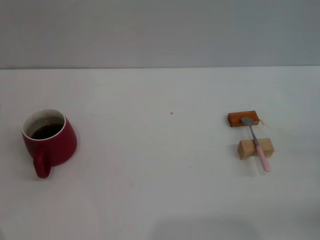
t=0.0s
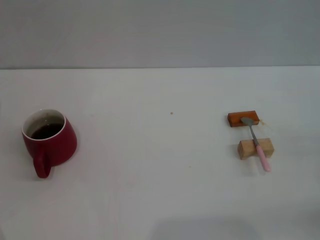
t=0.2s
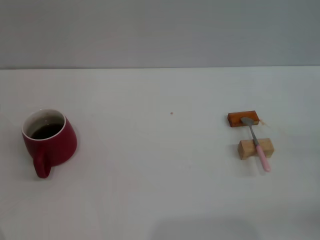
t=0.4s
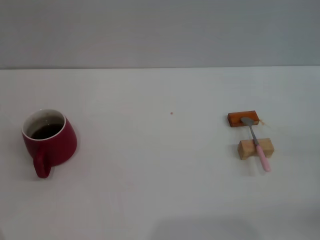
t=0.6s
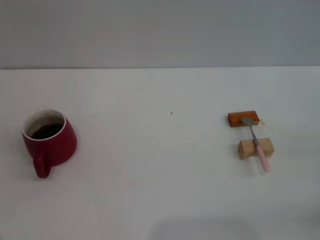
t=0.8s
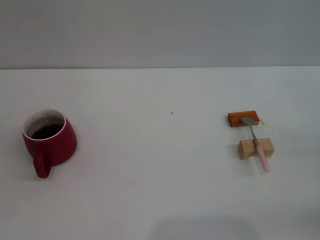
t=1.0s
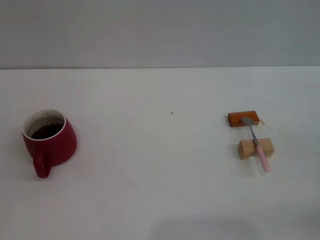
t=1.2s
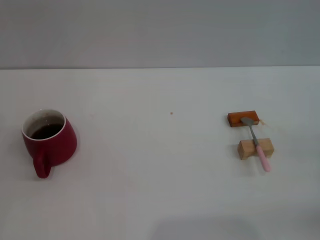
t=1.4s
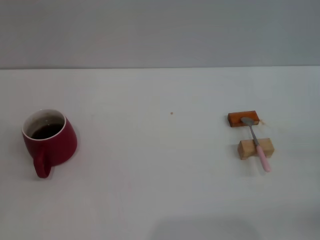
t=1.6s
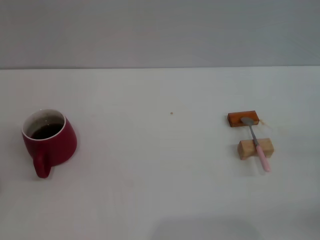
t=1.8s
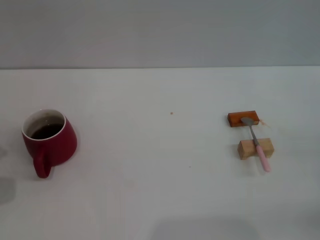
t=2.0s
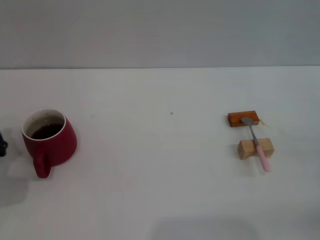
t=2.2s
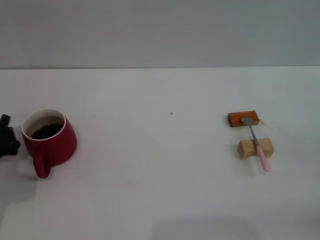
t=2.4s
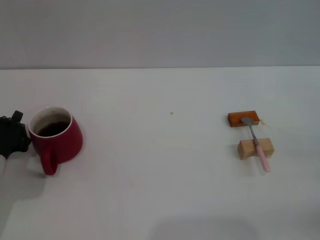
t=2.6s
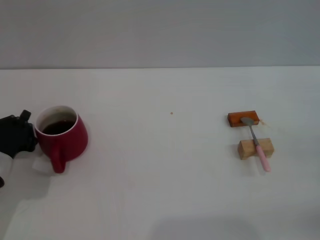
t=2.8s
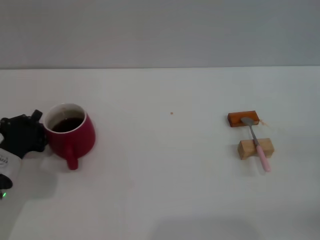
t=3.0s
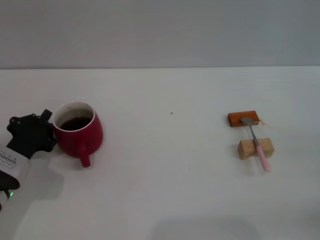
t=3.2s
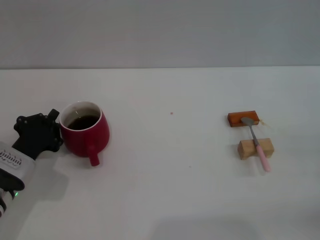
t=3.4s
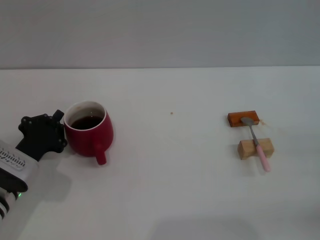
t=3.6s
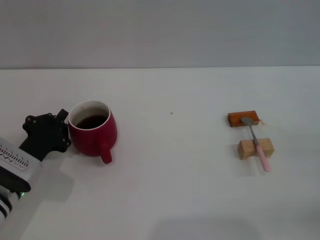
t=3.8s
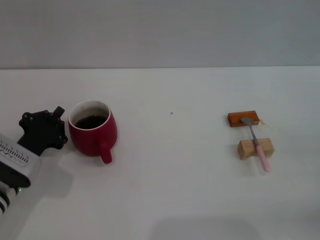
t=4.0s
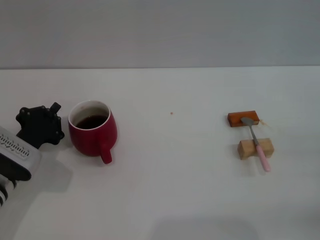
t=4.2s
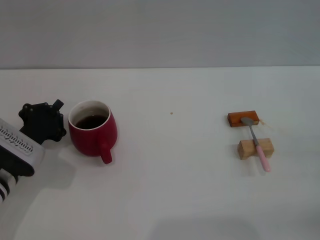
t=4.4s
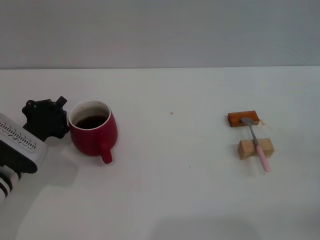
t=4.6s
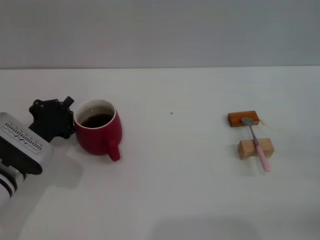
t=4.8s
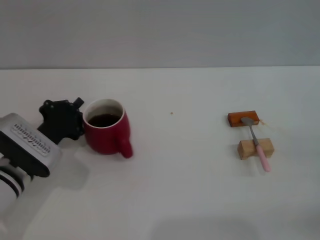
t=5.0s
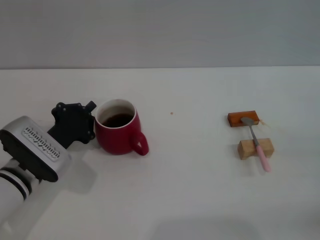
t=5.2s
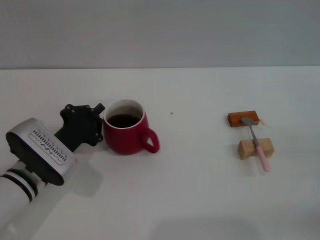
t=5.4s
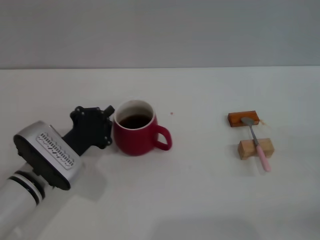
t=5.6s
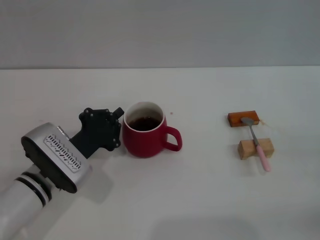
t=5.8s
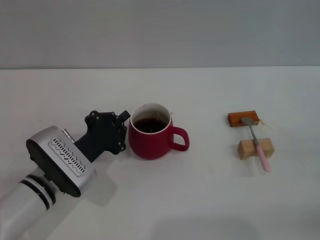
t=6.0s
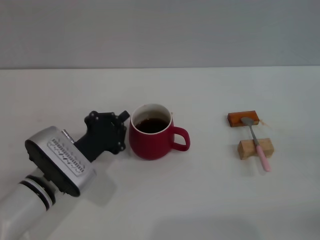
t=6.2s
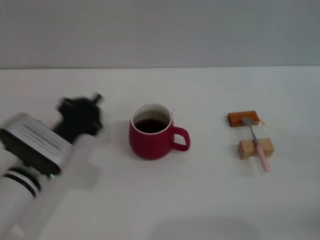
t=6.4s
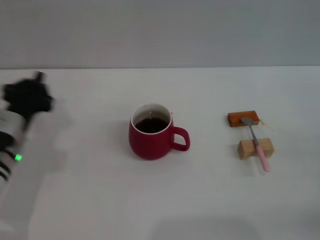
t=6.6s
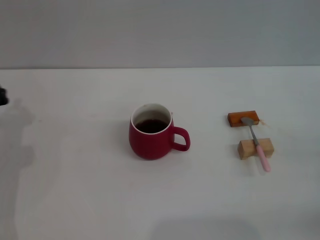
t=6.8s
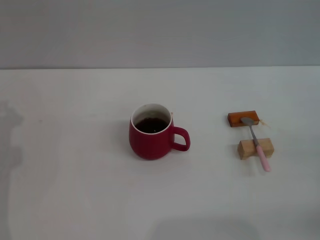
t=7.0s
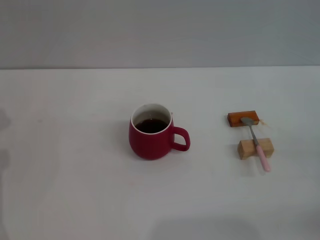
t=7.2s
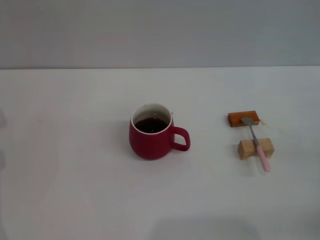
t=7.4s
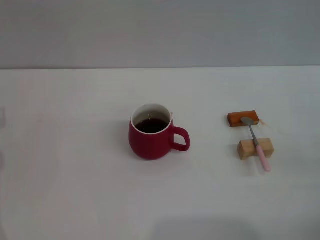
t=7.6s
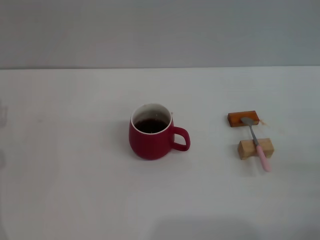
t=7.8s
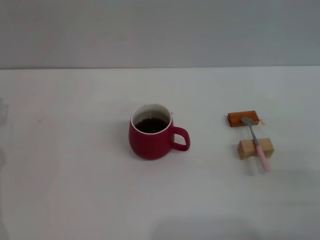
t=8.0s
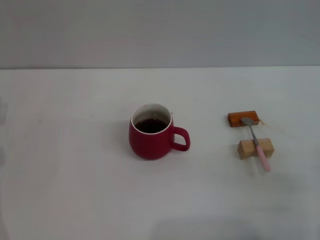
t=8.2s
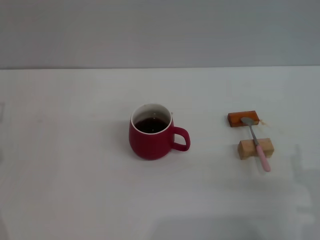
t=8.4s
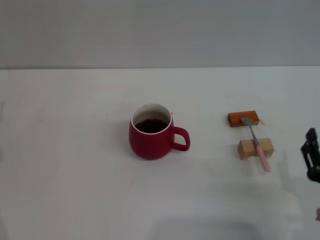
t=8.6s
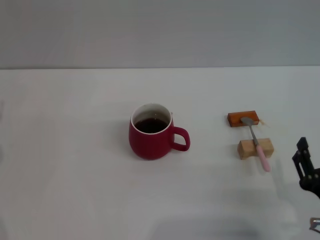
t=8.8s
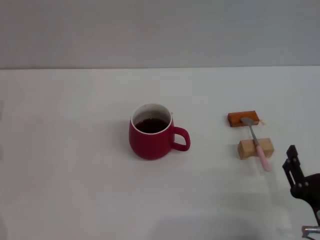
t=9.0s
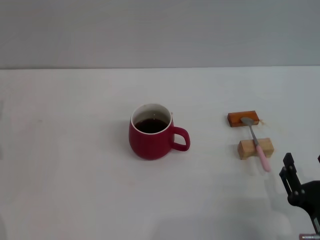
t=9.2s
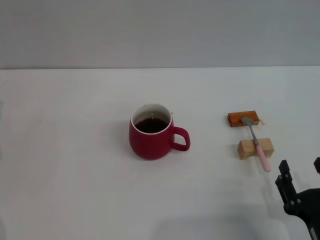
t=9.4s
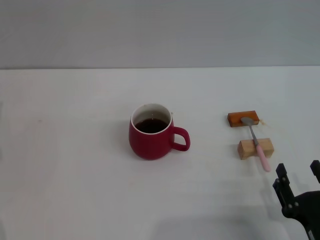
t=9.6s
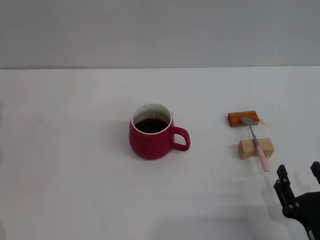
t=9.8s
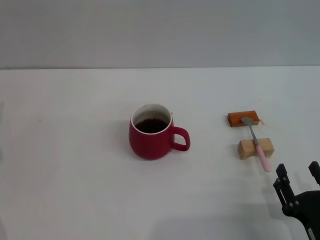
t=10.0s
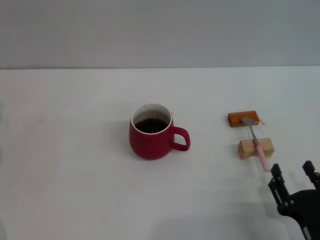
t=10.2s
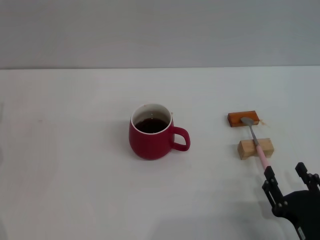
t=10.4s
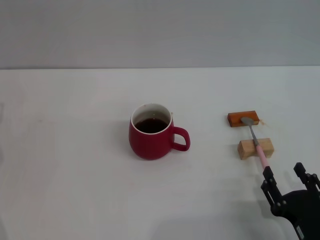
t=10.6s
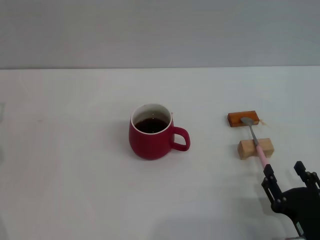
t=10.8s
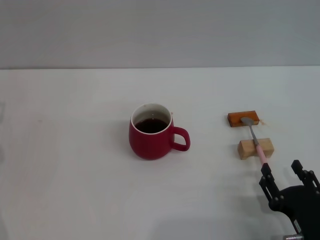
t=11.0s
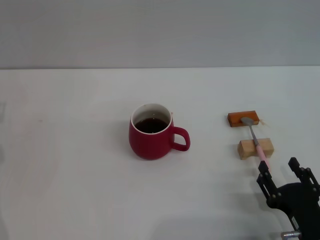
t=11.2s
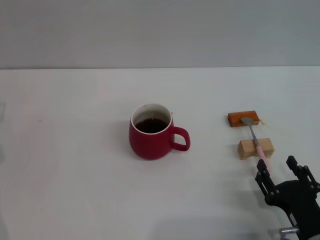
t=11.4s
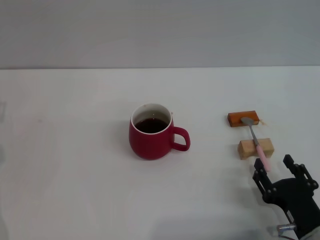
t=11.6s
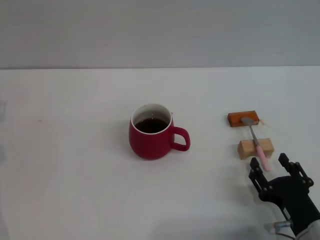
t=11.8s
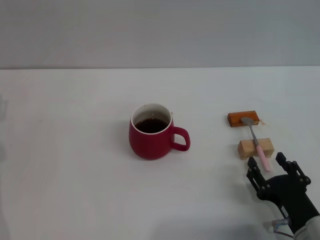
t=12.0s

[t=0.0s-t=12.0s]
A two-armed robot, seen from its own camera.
Task of the whole recording: Move the red cup to the center, lift the pink spoon, stir it three times in the cup, and put the spoon into the cup.
Step, t=0.0s to t=6.2s: Move the cup with coffee to the center of view with the left gripper.
t=1.6s to t=3.0s: The left gripper heads to the right, covering about 5 cm.
t=3.0s to t=4.4s: The grippers move only a little.
t=4.4s to t=6.0s: The left gripper heads to the right, covering about 10 cm.
t=6.0s to t=7.6s: The left gripper goes about 15 cm to the left, and opens its fingers.
t=7.6s to t=9.0s: The right gripper goes about 20 cm to the left and backward.
t=9.0s to t=10.4s: The grippers move only a little.
t=10.4s to t=12.0s: The grippers move only a little.

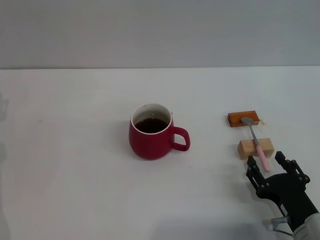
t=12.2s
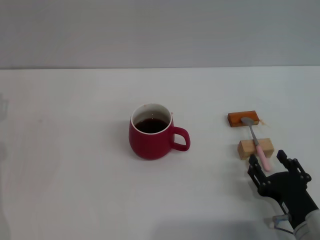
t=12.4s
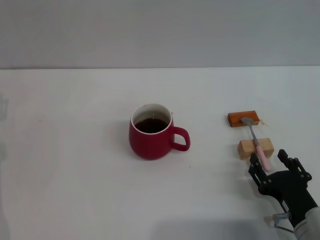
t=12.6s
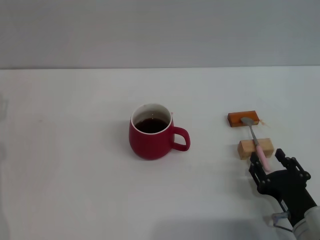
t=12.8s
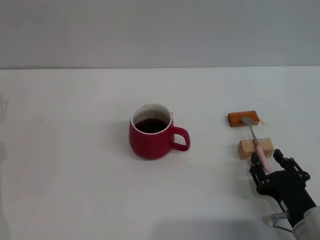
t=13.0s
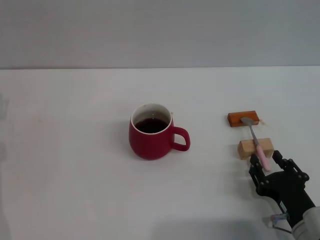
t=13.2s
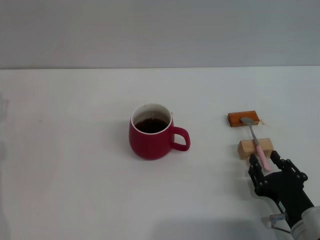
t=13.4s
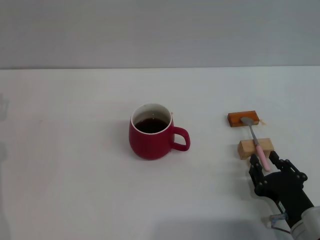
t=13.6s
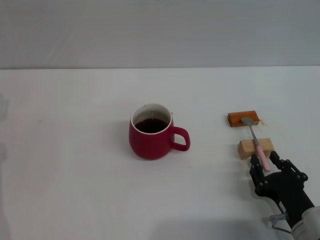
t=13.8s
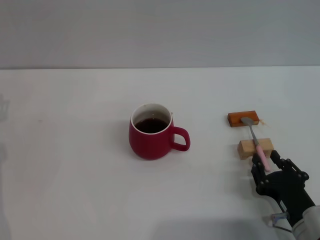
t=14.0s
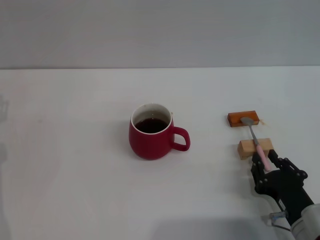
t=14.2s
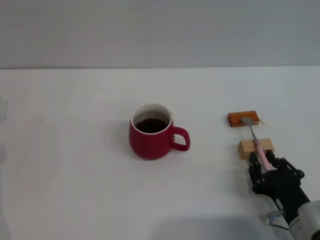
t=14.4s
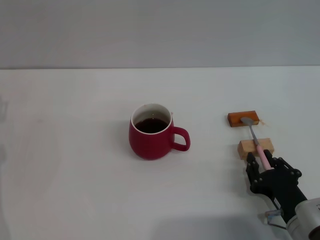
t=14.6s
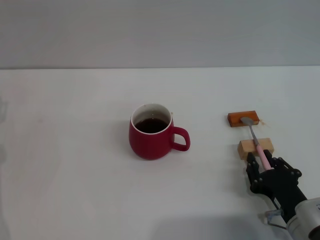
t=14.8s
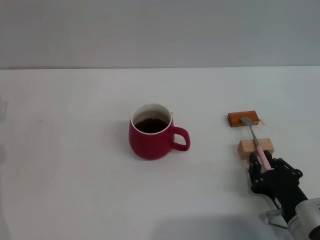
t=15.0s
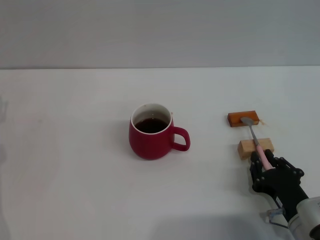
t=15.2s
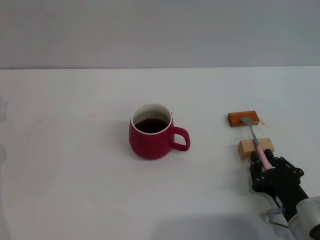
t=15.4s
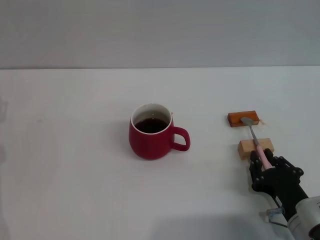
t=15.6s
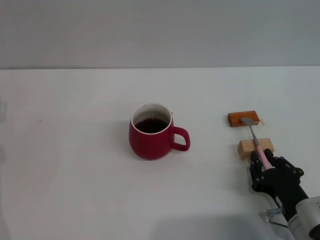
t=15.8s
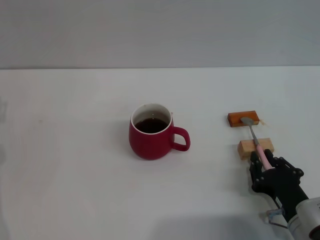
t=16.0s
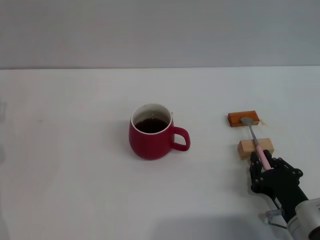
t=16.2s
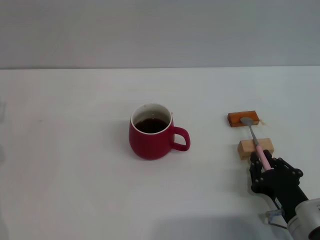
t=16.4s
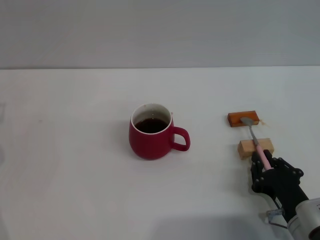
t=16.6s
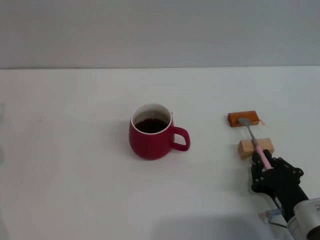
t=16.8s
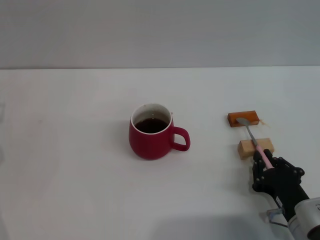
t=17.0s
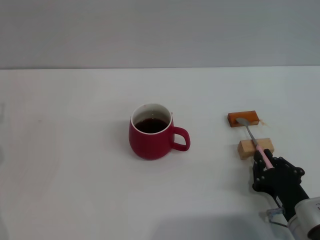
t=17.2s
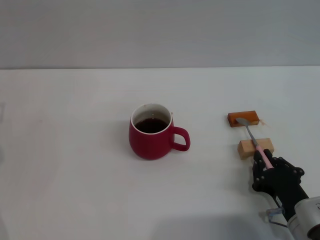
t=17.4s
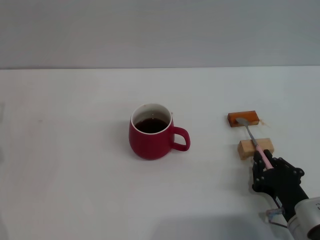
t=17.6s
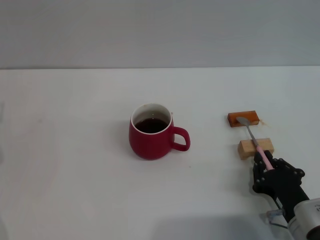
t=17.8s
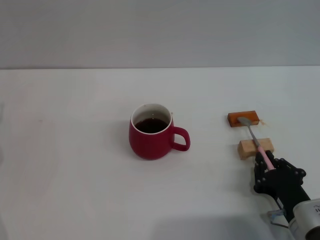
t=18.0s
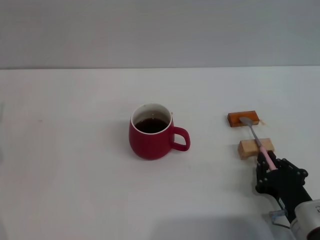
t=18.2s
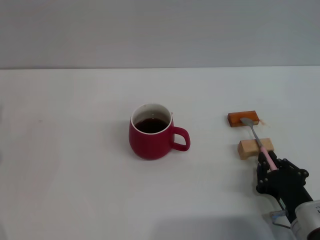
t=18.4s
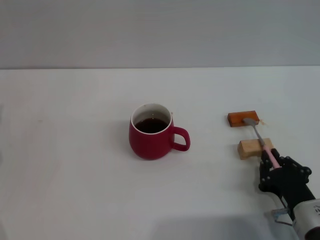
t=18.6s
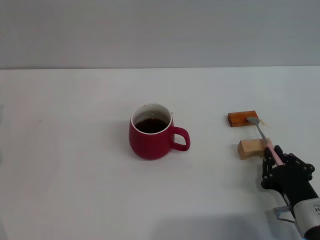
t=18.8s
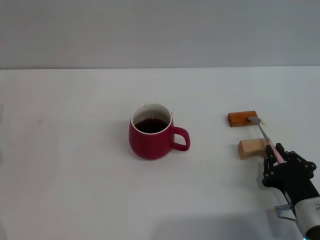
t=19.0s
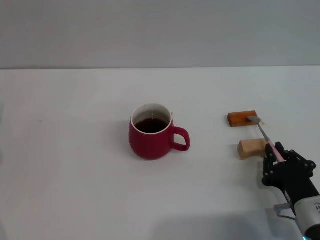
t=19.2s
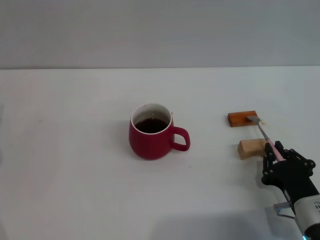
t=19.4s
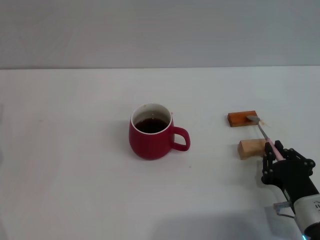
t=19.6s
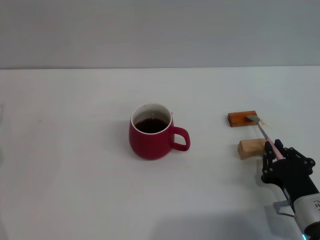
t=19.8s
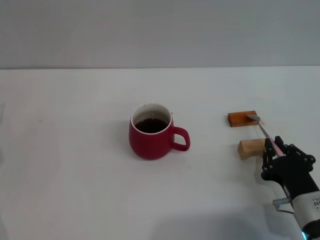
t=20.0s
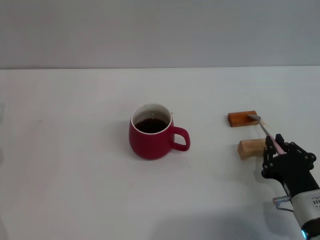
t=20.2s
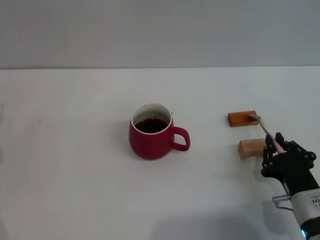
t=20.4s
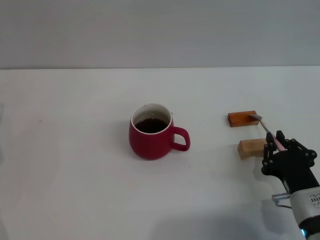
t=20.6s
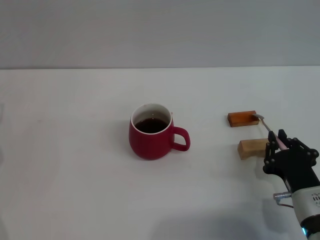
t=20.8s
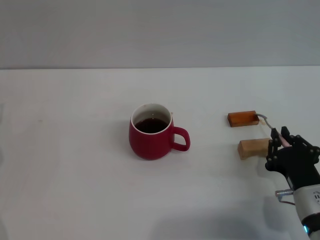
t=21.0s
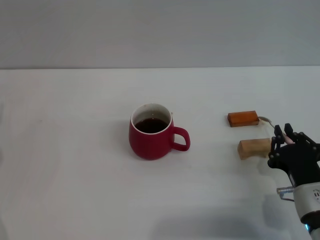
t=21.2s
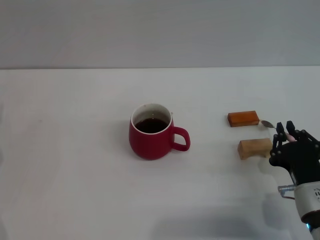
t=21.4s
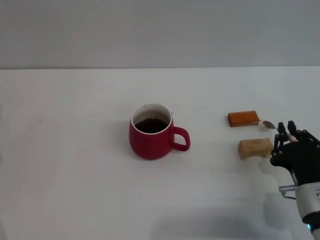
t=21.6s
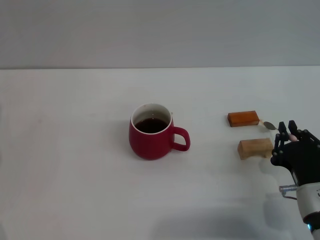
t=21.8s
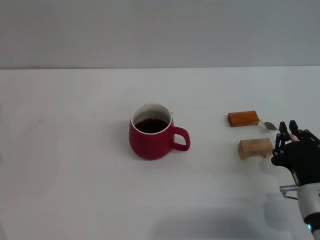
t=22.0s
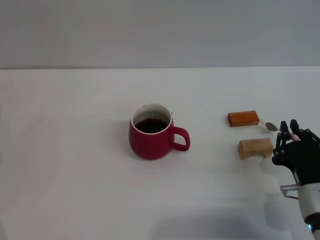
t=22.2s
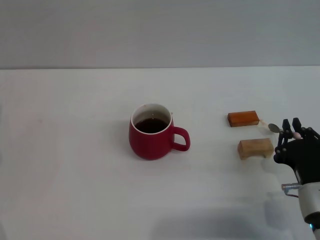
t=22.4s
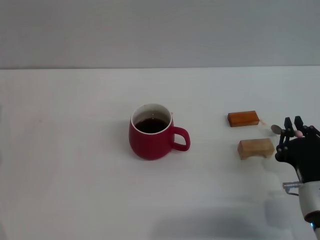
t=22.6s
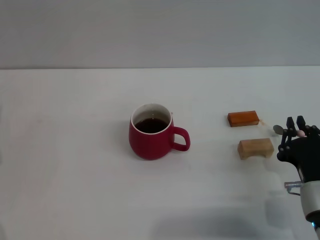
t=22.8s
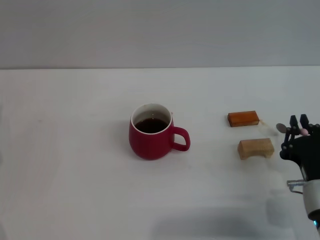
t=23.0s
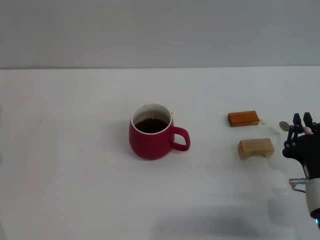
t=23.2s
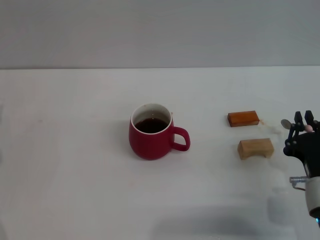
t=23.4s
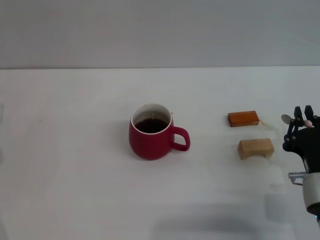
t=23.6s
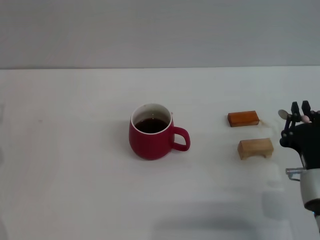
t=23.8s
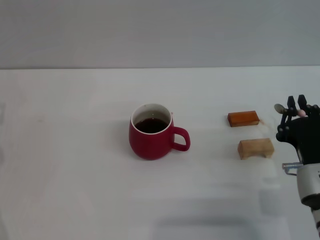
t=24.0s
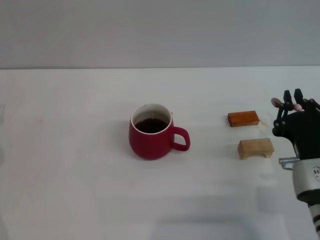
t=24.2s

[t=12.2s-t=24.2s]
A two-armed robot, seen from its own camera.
Task of the whole recording: Move the red cup to the center, lift the pink spoon, stir it three times in the cup, and put the spoon into the cup.
Step, t=12.2s to t=24.0s: Pick up the spoon with the right gripper.
t=12.2s to t=13.8s: The two grippers keep their place.
t=13.8s to t=18.2s: Both grippers stay about where they are.
t=18.2s to t=21.2s: There are only small adjustments of the grippers.
t=21.2s to t=22.6s: Both grippers stay put.
t=22.6s to t=24.2s: The grippers make only small movements.
